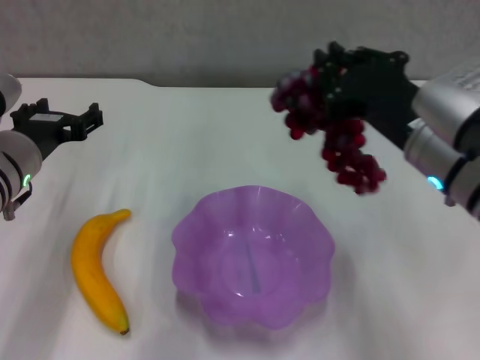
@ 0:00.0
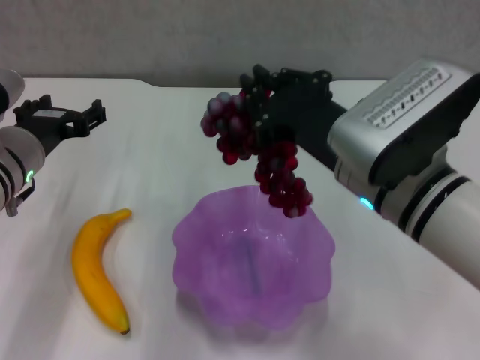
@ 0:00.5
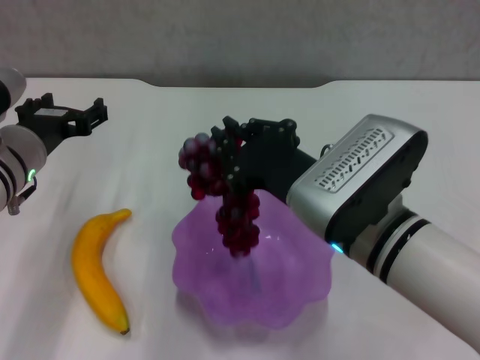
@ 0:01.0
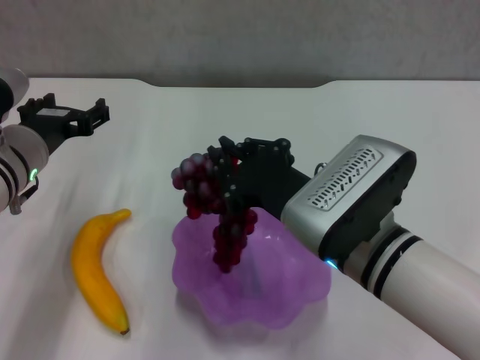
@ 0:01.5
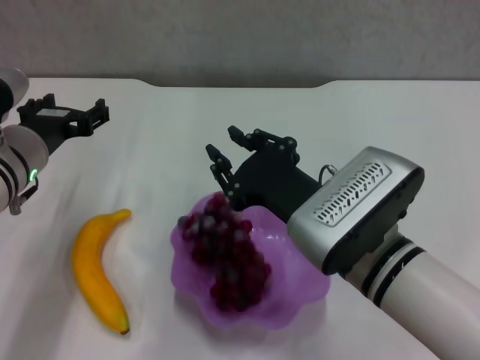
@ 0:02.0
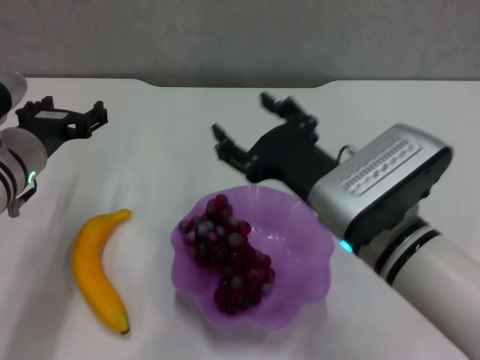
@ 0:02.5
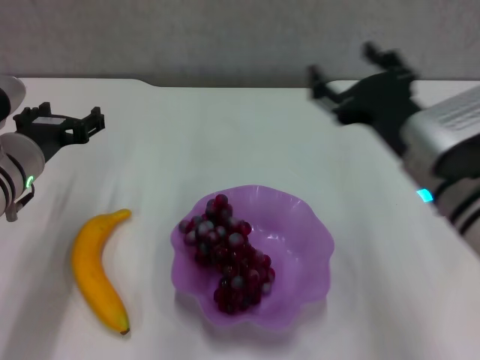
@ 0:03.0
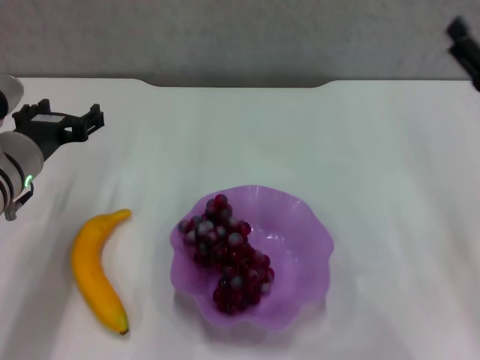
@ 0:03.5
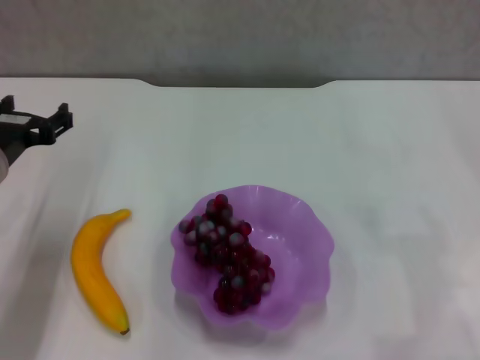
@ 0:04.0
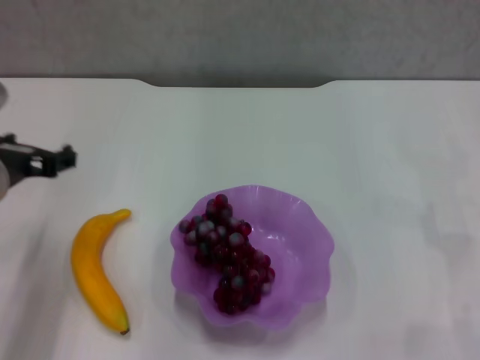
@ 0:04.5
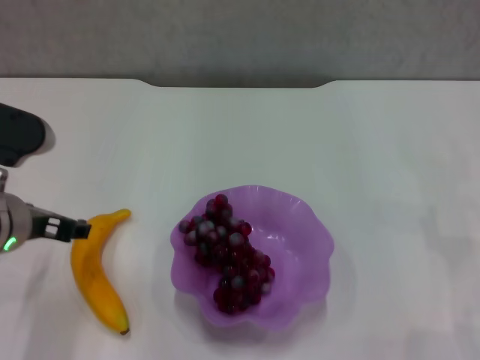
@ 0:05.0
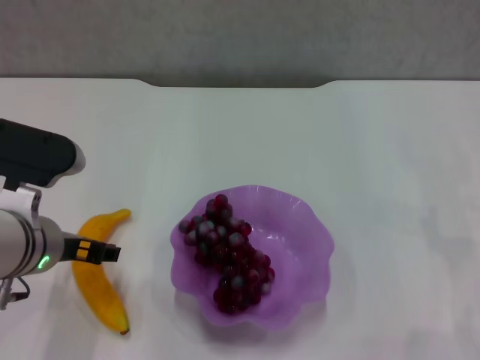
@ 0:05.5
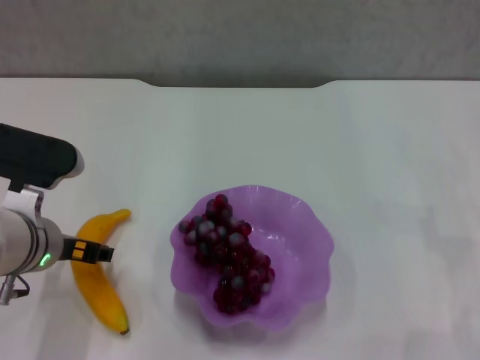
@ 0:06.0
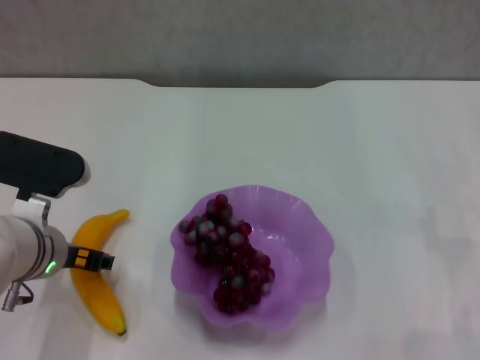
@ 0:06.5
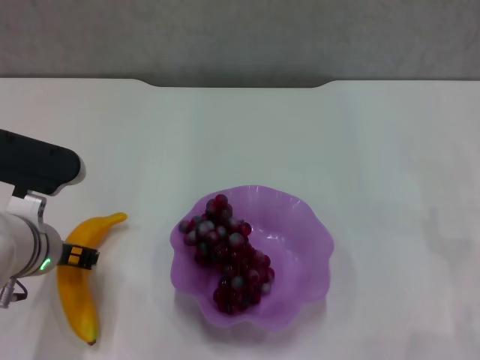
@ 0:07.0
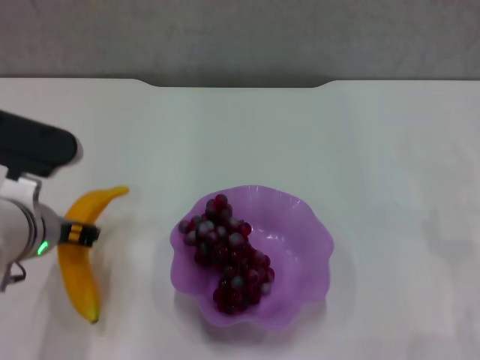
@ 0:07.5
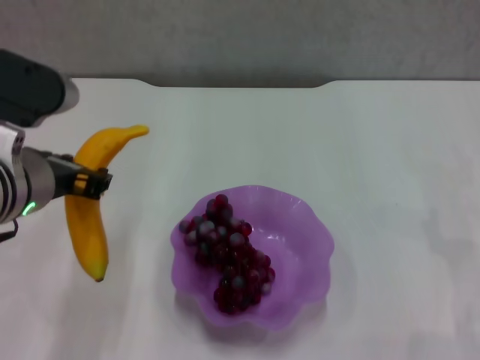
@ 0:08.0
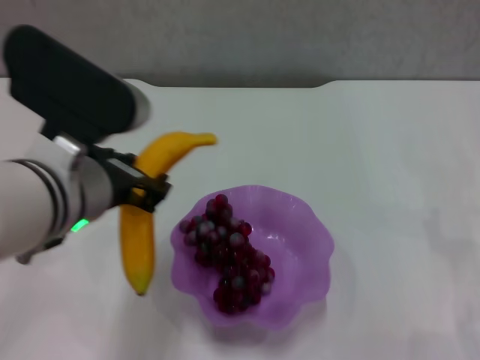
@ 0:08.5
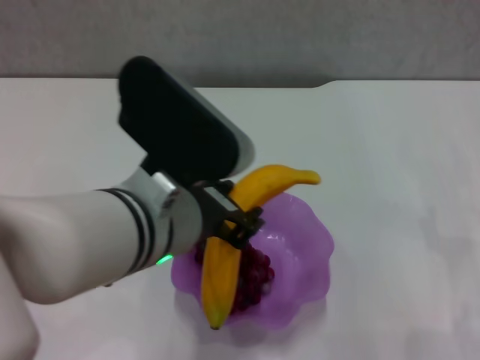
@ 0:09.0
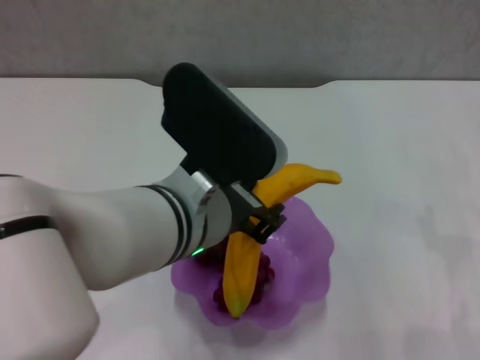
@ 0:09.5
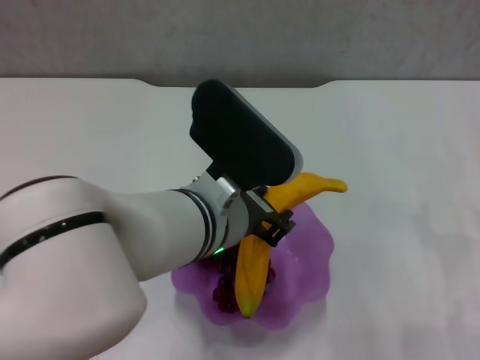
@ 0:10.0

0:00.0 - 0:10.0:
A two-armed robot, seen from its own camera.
Step, 0:00.0 - 0:02.0: Place the grape in the purple plate with right gripper.
Step, 0:02.5 - 0:07.0: Grasp the banana with left gripper.
0:00.0 - 0:02.0: The right gripper shifts roughly 10 cm to the left and downward.
0:02.0 - 0:04.0: The right gripper heads to the right, covering some 25 cm, and opens up.
0:04.0 - 0:06.0: The left gripper is displaced to the right by some 5 cm.
0:06.0 - 0:08.0: The left gripper goes roughly 10 cm upward, and closes its fingers.
0:08.0 - 0:10.0: The left gripper goes approximately 15 cm to the right.

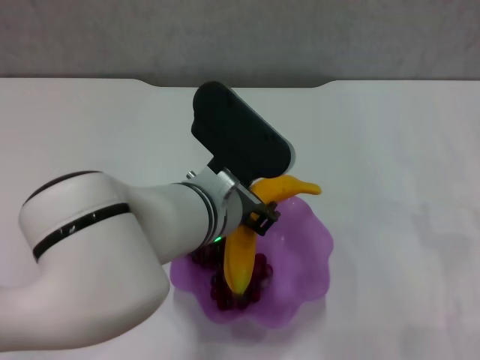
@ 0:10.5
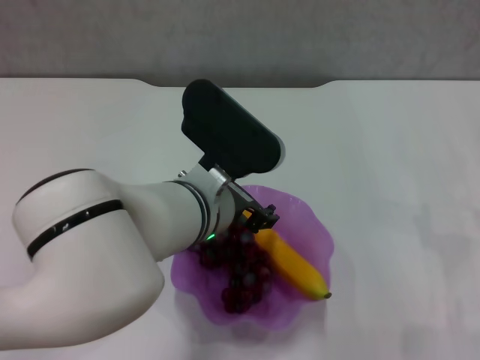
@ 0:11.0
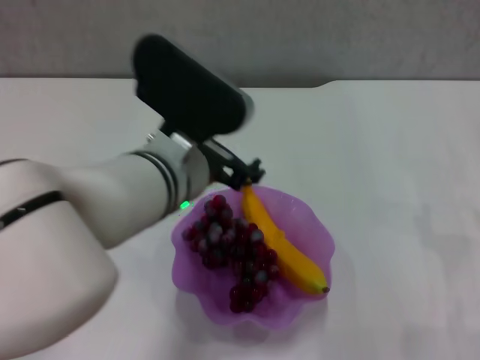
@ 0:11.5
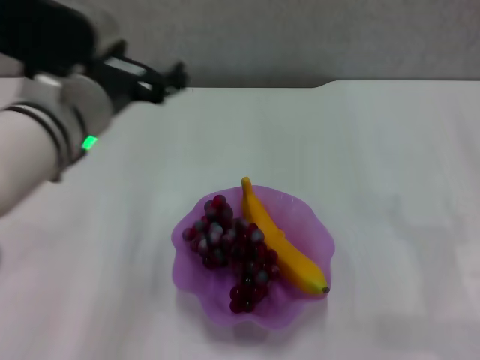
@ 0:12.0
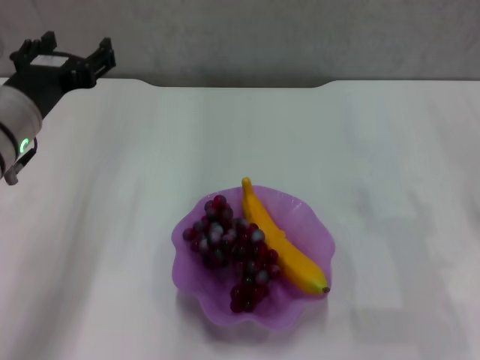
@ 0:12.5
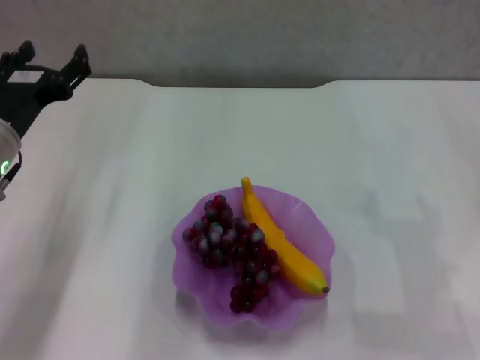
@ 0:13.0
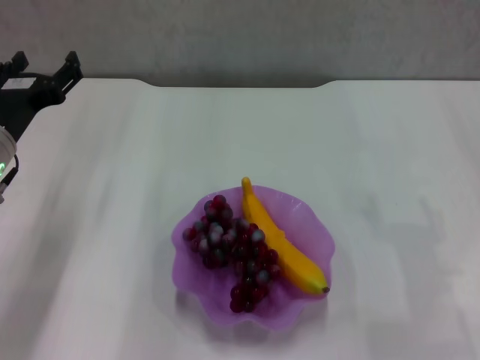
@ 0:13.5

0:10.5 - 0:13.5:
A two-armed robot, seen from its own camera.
0:10.5 - 0:12.0: The left gripper shifts about 10 cm to the left and upward, and opens up.
0:12.0 - 0:13.5: The left gripper shifts roughly 15 cm to the left and downward.

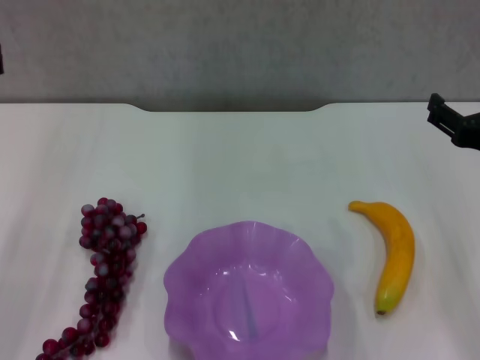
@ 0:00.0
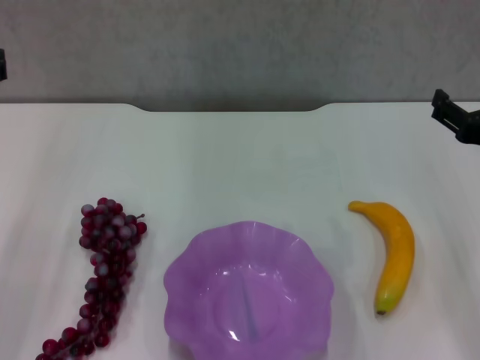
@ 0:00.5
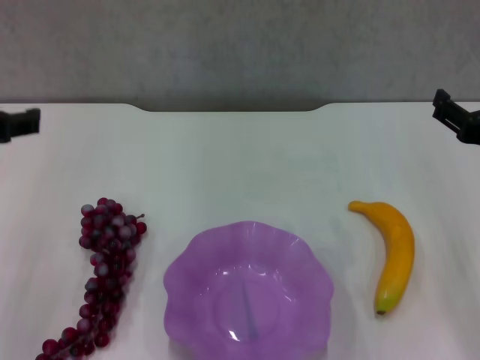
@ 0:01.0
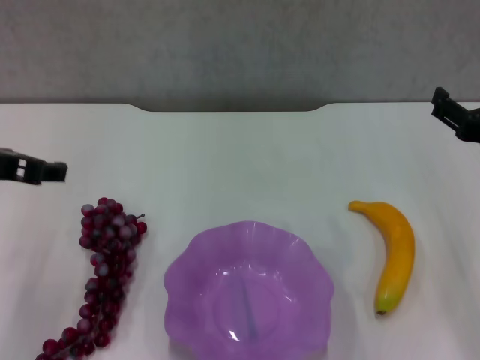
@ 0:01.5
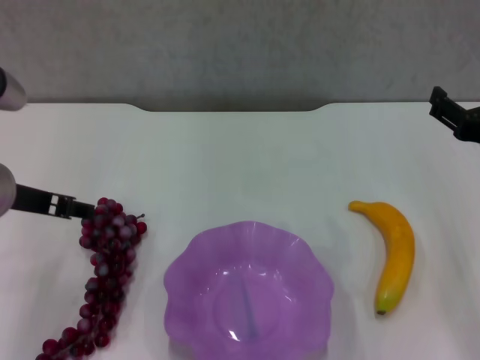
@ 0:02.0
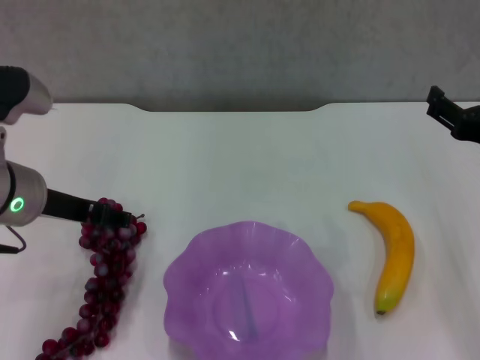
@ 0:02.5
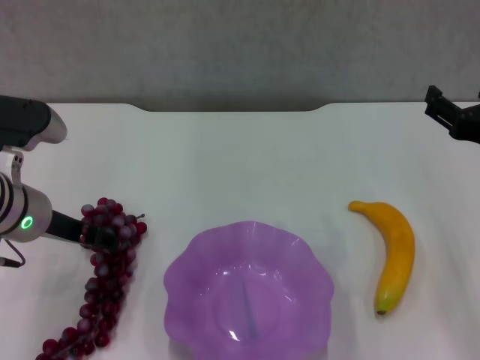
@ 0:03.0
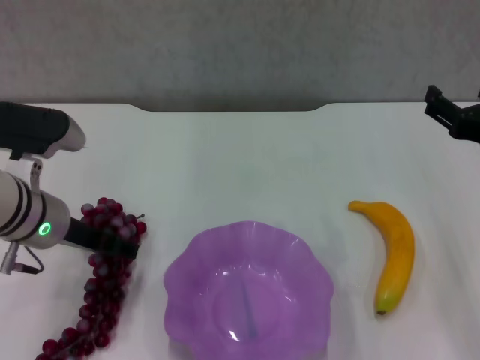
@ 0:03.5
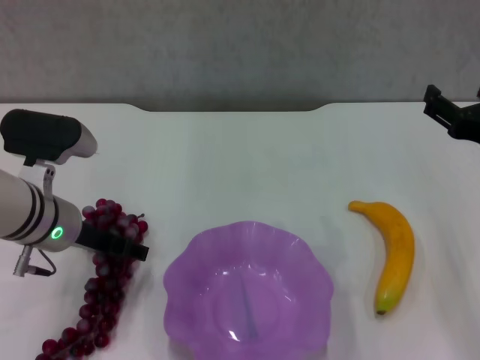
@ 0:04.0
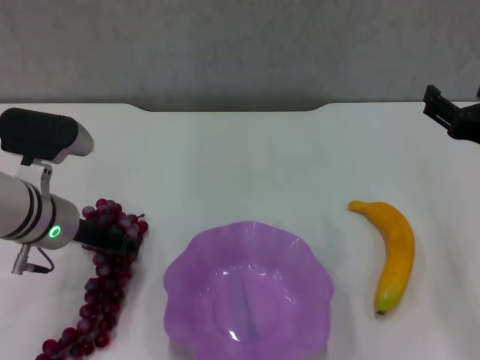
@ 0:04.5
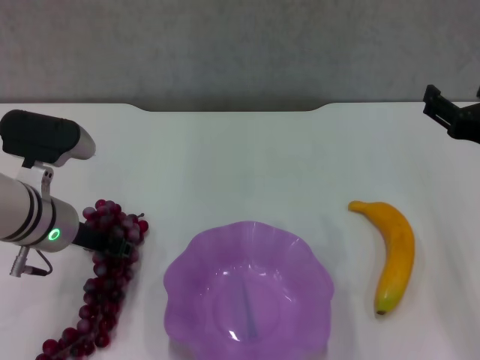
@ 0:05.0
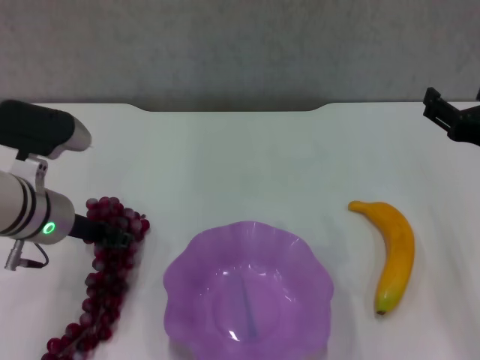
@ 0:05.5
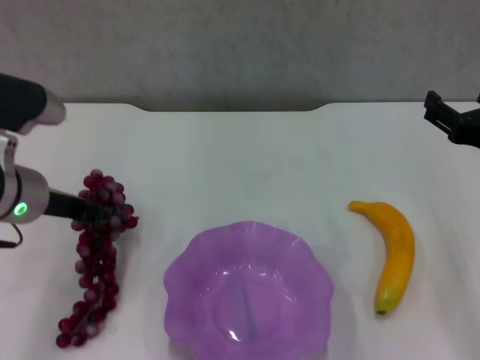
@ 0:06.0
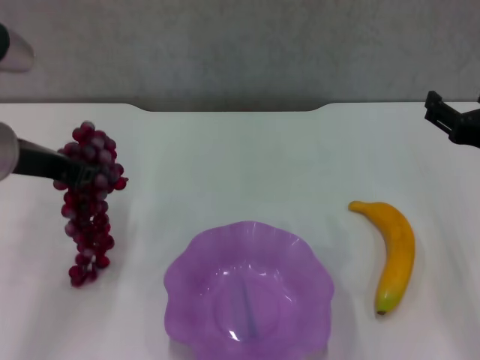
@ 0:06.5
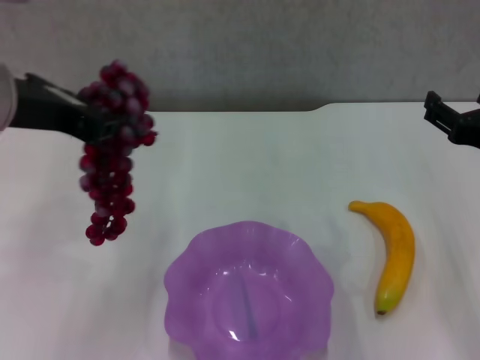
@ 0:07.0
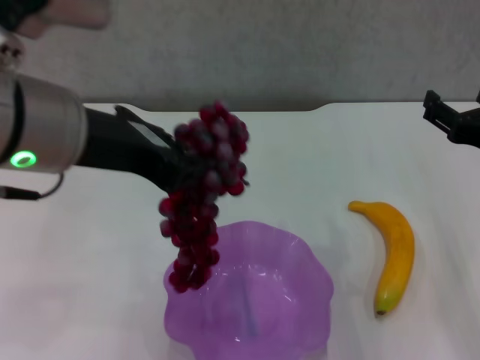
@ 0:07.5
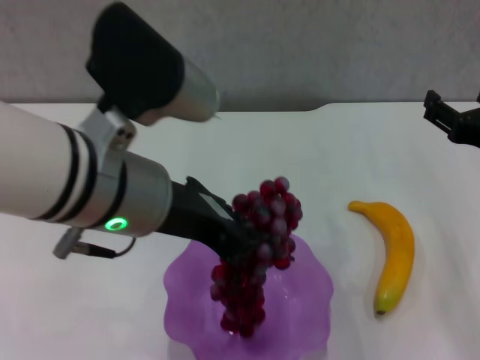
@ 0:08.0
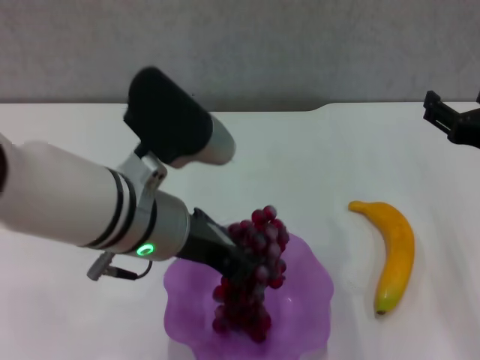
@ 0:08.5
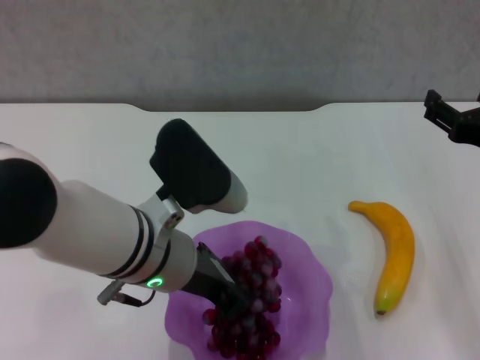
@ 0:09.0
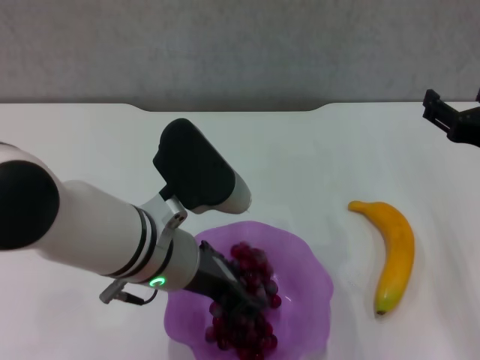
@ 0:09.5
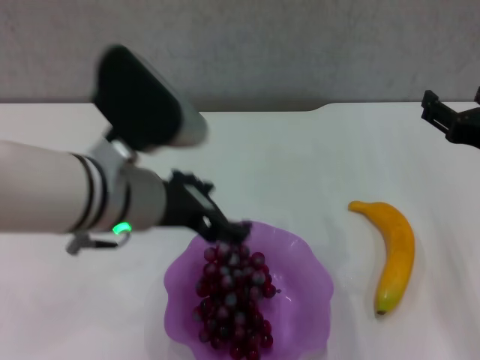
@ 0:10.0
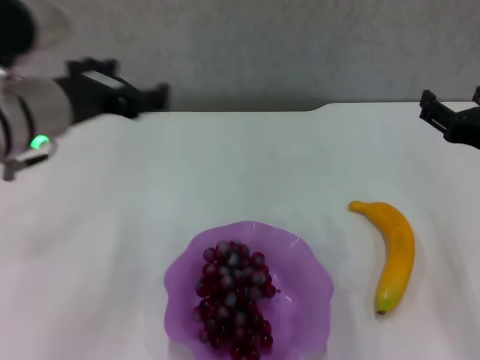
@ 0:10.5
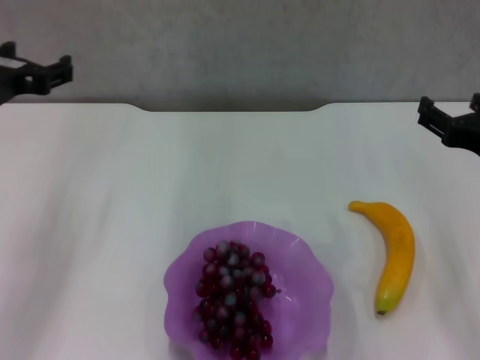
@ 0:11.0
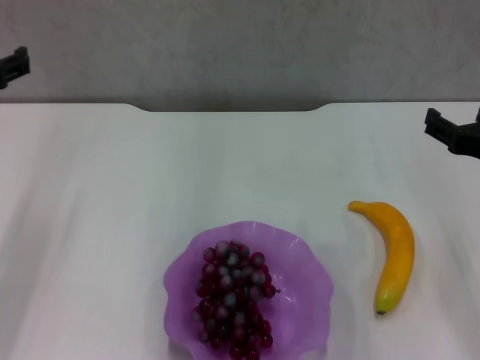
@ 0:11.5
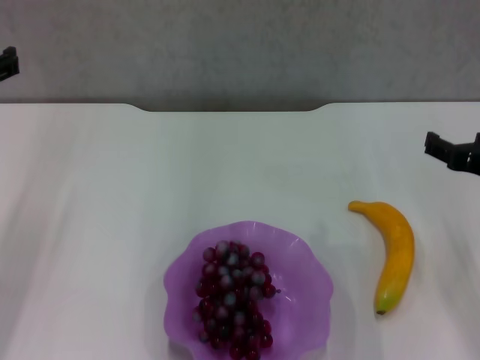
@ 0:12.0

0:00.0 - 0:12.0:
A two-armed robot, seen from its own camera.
Step, 0:00.0 - 0:05.0: Grasp the grape with left gripper.
Step, 0:05.5 - 0:09.5: Place the grape in the purple plate with left gripper.
0:00.0 - 0:02.0: The left gripper heads downward and forward, covering roughly 10 cm.
0:02.0 - 0:04.0: The left gripper moves downward, some 5 cm.
0:04.0 - 0:06.0: The left gripper closes its fingers.
0:06.0 - 0:08.0: The left gripper travels to the right, upward and backward by approximately 15 cm.
0:08.0 - 0:10.0: The left gripper heads downward, covering about 5 cm, and opens.
0:10.0 - 0:12.0: The left gripper moves to the left, about 20 cm.
